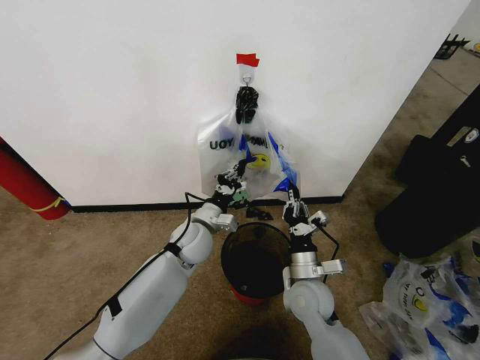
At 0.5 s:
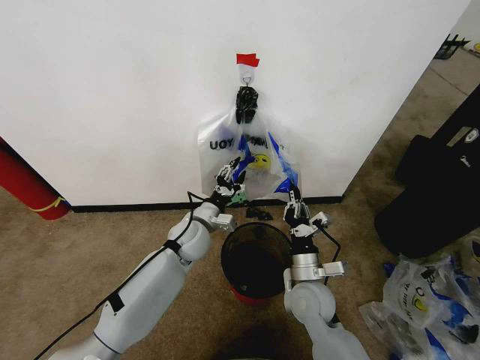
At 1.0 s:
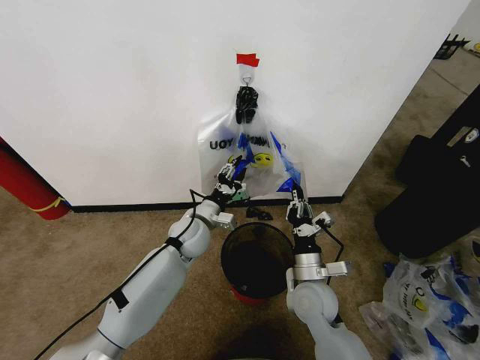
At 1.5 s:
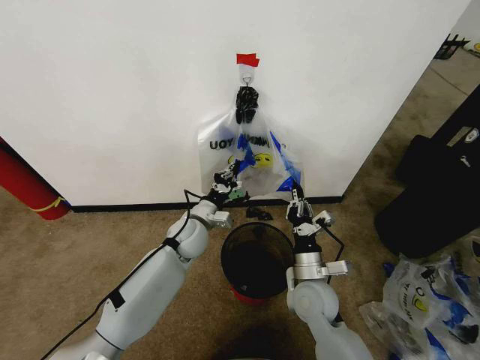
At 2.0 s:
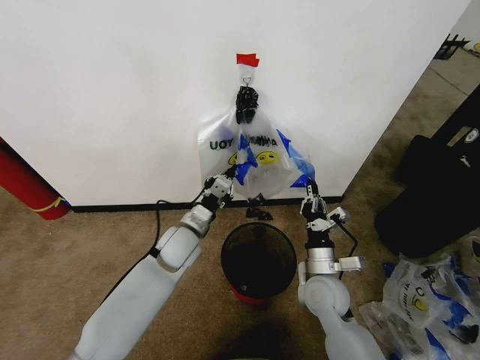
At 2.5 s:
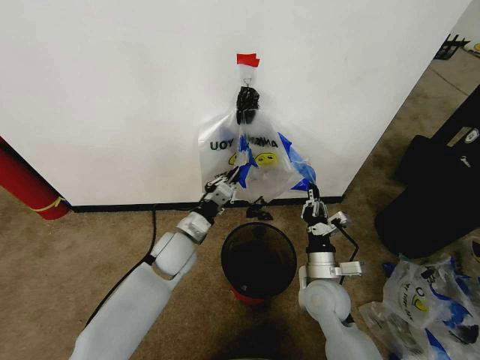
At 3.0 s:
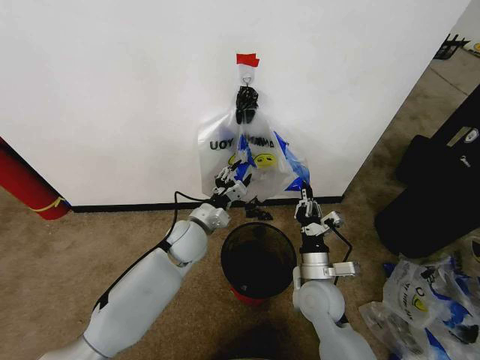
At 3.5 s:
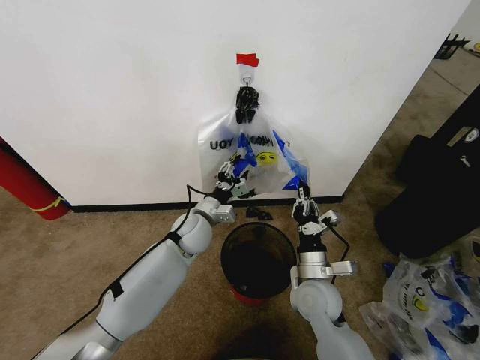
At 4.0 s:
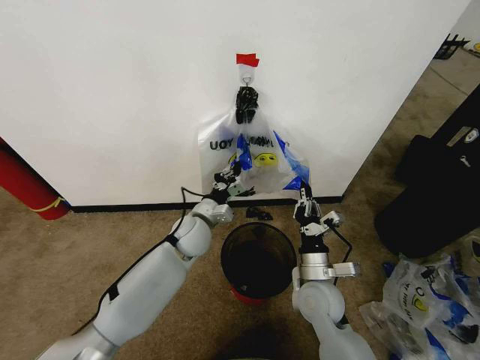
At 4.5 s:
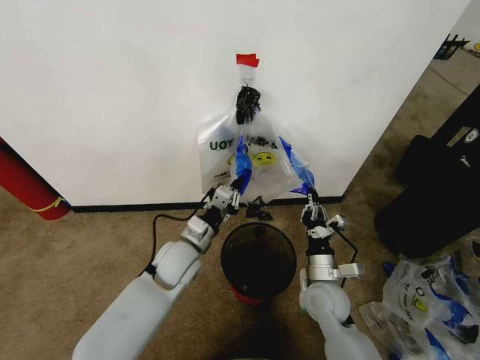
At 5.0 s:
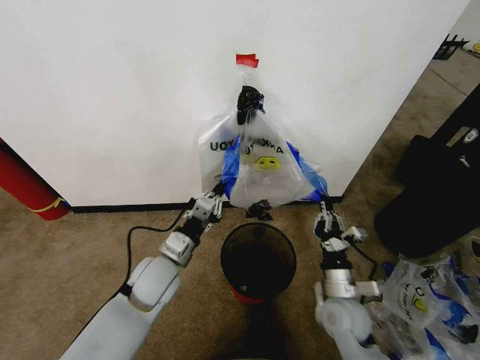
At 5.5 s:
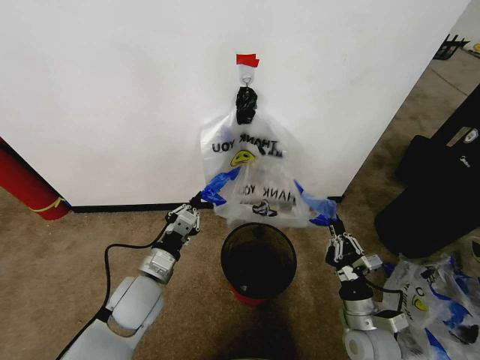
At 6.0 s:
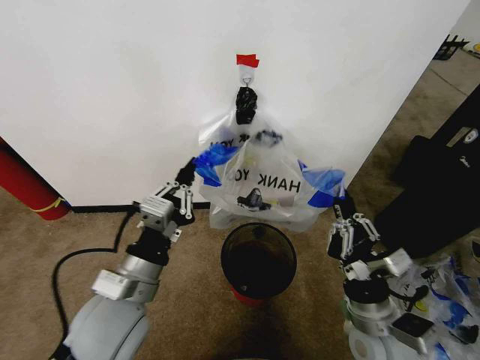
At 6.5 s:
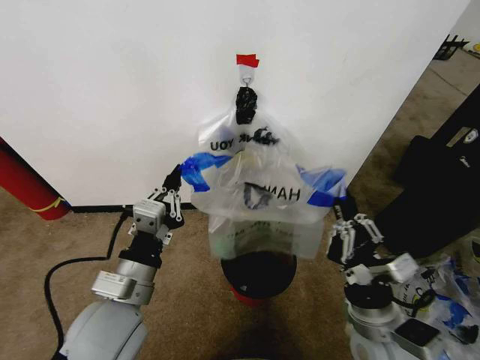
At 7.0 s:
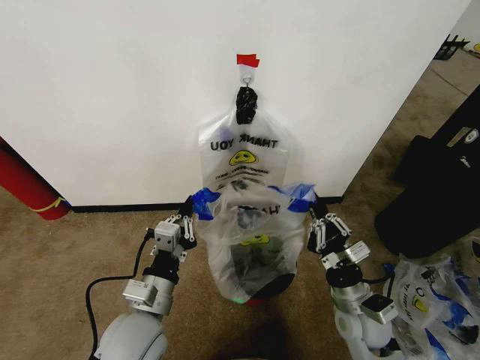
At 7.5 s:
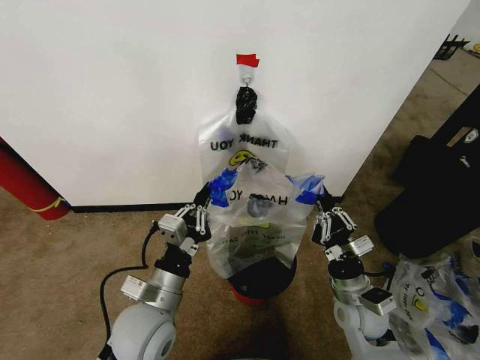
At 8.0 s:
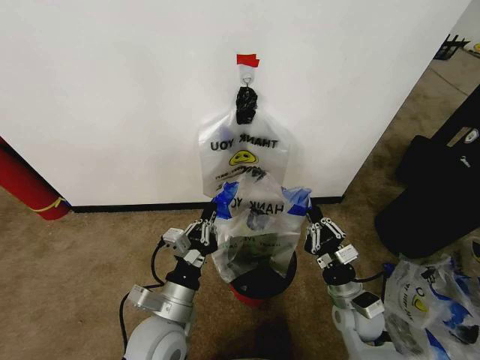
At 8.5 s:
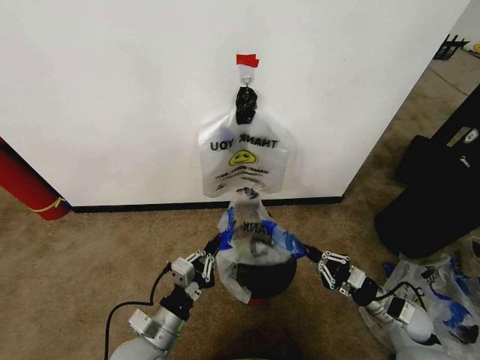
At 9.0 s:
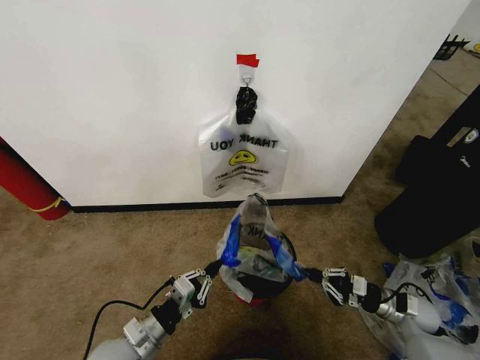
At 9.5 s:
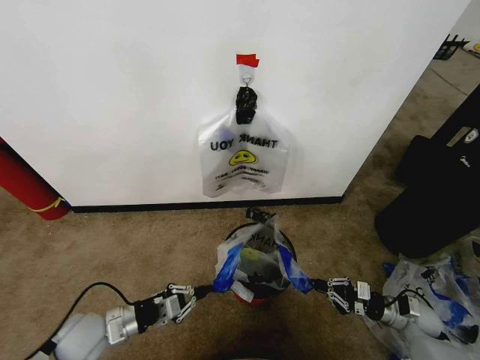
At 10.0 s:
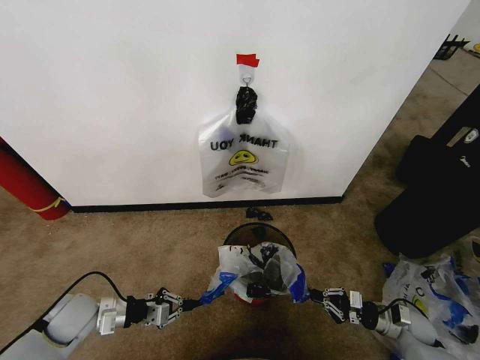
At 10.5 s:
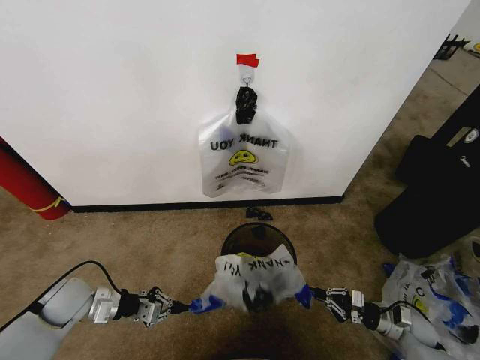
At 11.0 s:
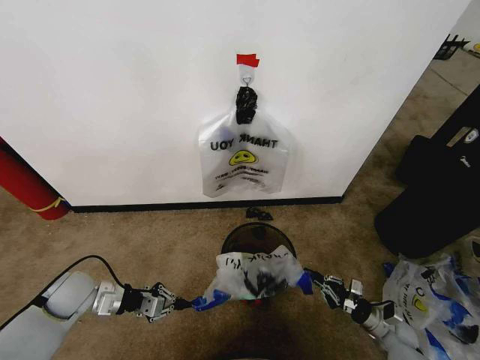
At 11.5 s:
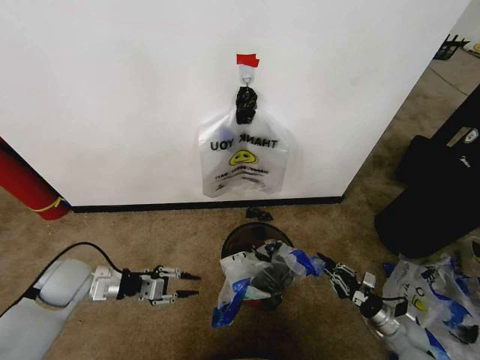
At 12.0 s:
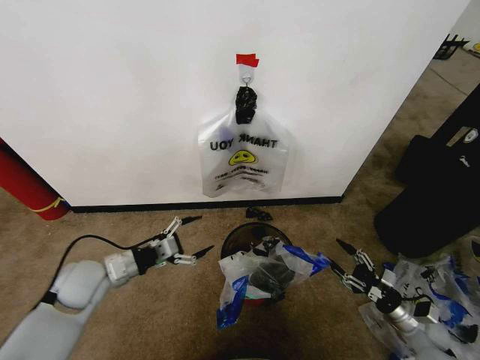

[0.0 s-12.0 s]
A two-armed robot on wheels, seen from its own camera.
Task of the whole recording: Pick up the garbage bag from the wall and place it over the trash bin.
0.0 to 2.0 s: The left gripper opens, then closes once more.
2.0 to 4.0 s: The left gripper opens and closes again.
4.0 to 6.0 s: The left gripper moves backward and upward, roughly 25 cm; the right gripper moves backward, to the right and upward, about 10 cm.
6.0 to 8.0 s: The right gripper shifts about 10 cm downward and forward. Meanwhile the left gripper shifts some 10 cm downward.
8.0 to 10.0 s: The left gripper moves to the left, some 20 cm. The right gripper shifts some 25 cm to the right and downward.
10.0 to 12.0 s: The left gripper is displaced upward by about 5 cm, and opens its fingers. Meanwhile the right gripper opens.

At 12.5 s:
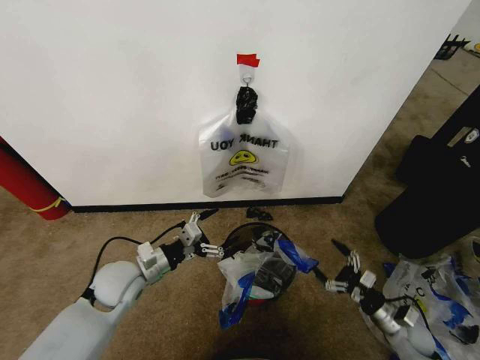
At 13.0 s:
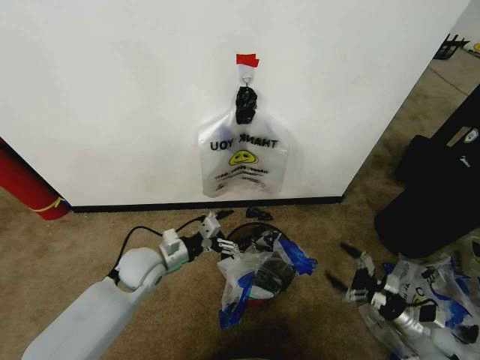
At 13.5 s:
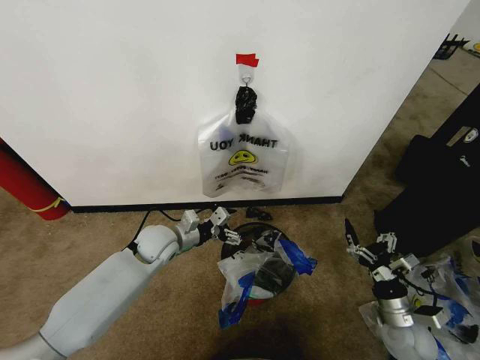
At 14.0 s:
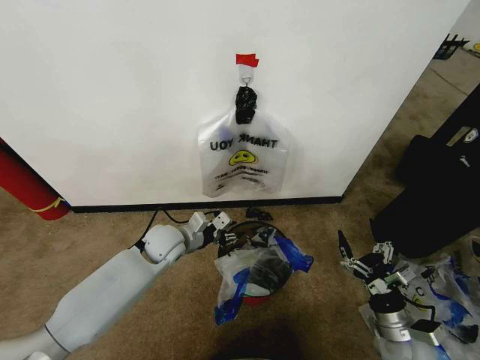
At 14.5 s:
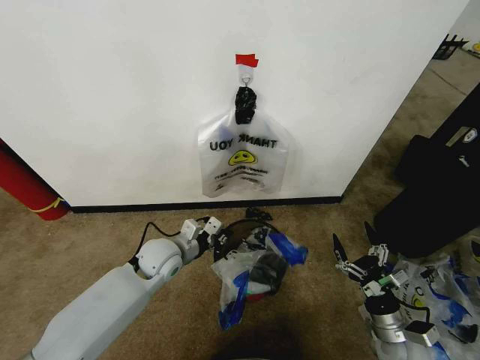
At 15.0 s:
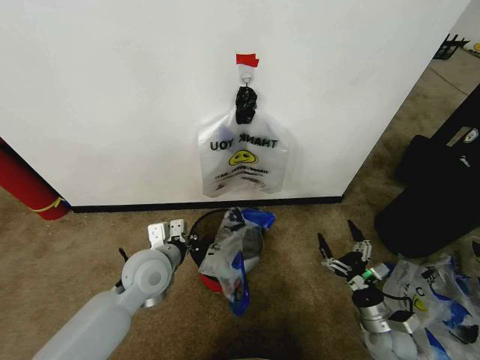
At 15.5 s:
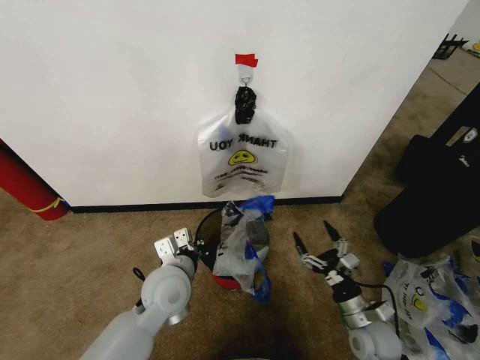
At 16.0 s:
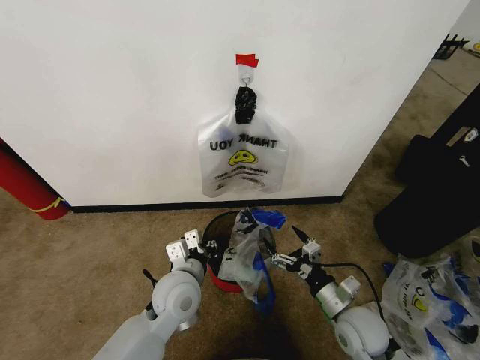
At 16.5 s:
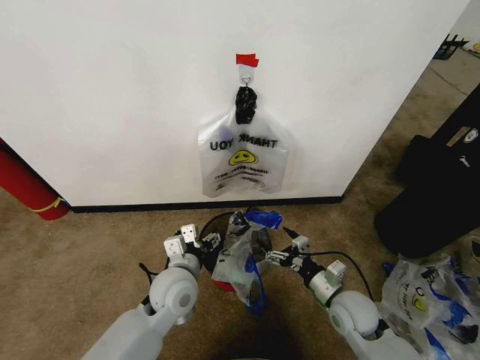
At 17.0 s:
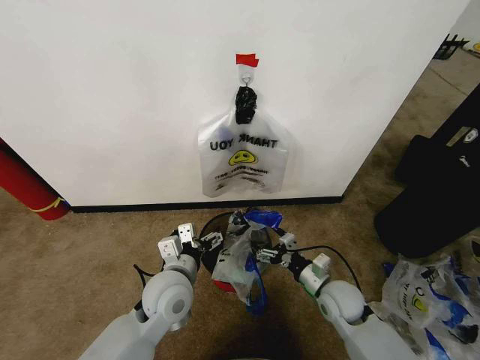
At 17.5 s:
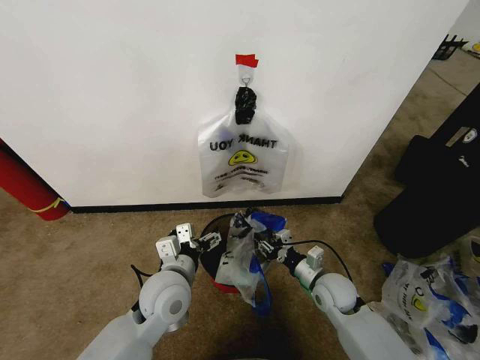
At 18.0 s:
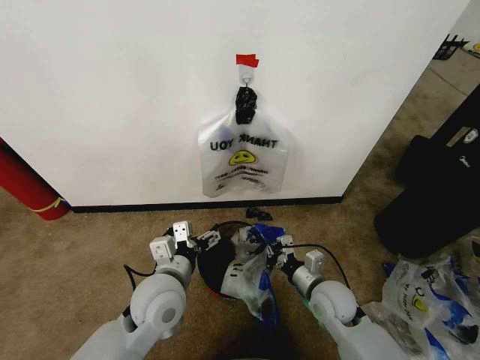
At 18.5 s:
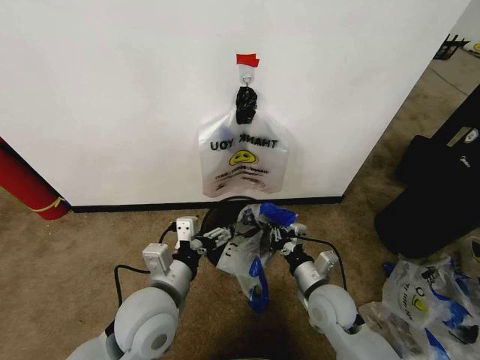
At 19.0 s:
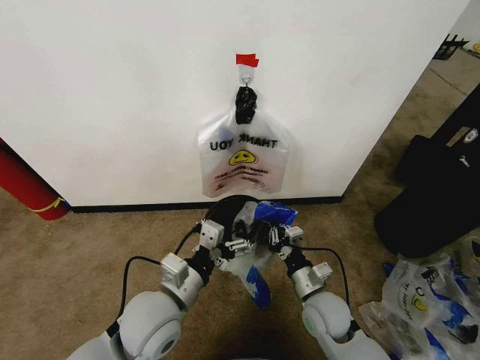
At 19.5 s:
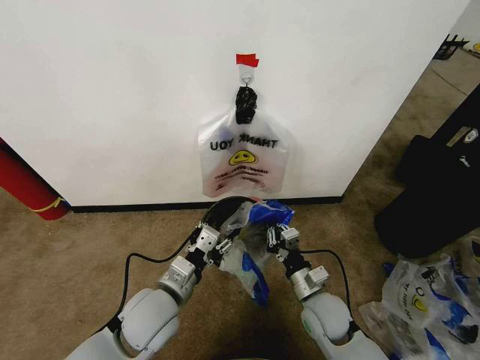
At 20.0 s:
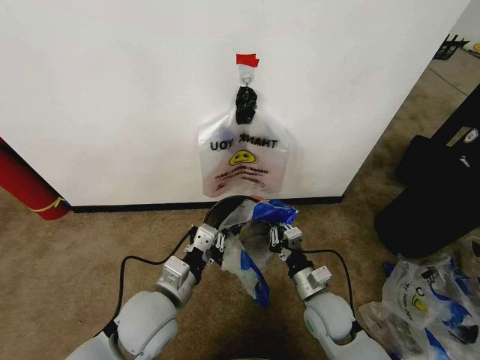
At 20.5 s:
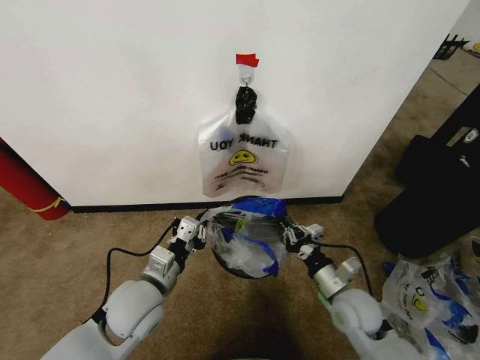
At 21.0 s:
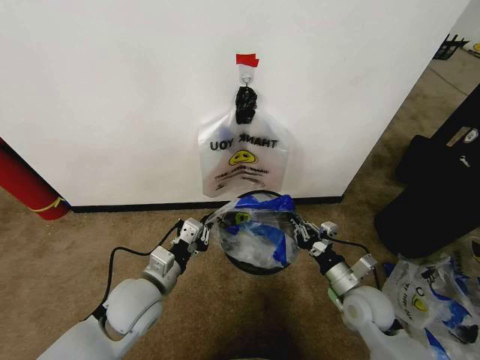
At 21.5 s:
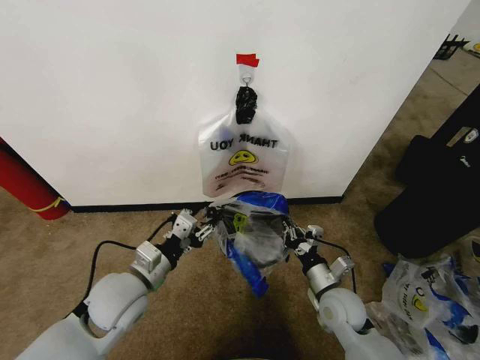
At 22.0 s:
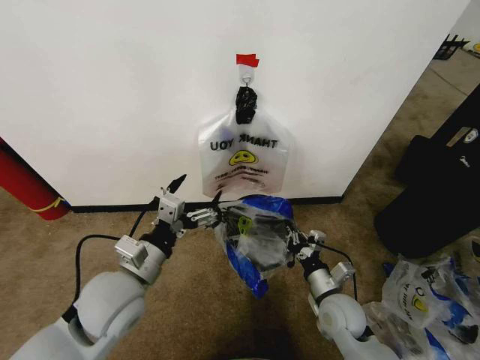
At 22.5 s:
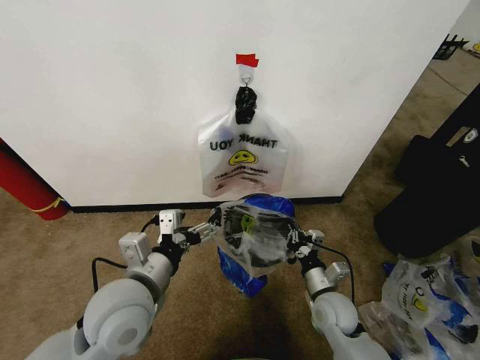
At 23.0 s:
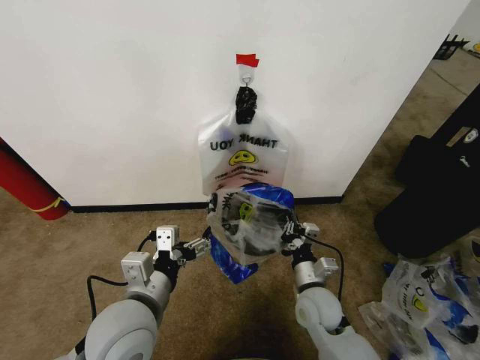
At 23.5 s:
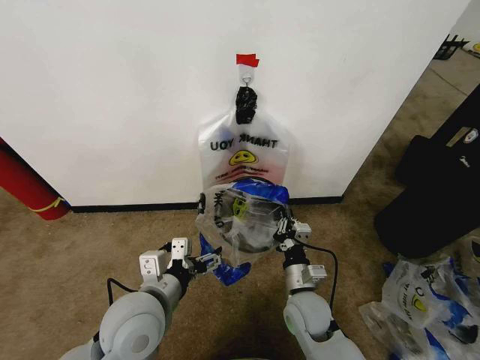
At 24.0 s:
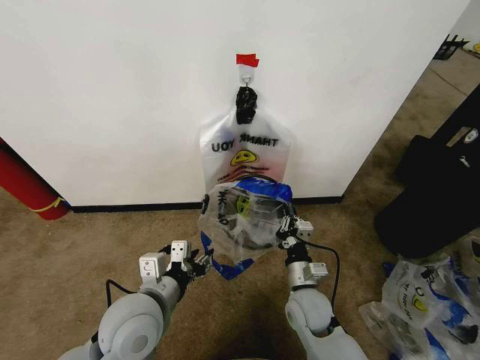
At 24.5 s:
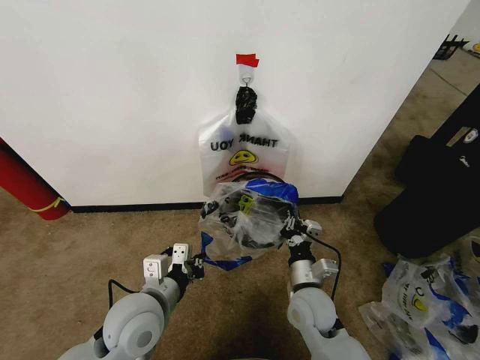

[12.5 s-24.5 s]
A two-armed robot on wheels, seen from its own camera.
Task of the whole recording: Pick up the garbage bag from the wall and place it over the trash bin.
12.5 to 14.5 s: The left gripper is displaced to the right and forward by about 10 cm, and closes; the right gripper shifts roughly 10 cm to the left, upward and backward.
14.5 to 16.5 s: The right gripper shifts roughly 10 cm to the left and forward. The left gripper travels backward and to the right by approximately 10 cm, and opens its fingers.
16.5 to 18.5 s: The right gripper heads to the left, covering about 5 cm, and closes. Meanwhile the left gripper goes some 10 cm backward and upward.
18.5 to 20.5 s: The left gripper shifts by roughly 5 cm, and closes its fingers. Meanwhile the right gripper goes some 5 cm to the right.
20.5 to 22.5 s: The right gripper changes place by about 5 cm; the left gripper heads upward, covering roughly 10 cm, and opens.
22.5 to 24.5 s: The right gripper moves to the left, roughly 5 cm. Meanwhile the left gripper travels downward by roughly 5 cm, and closes.

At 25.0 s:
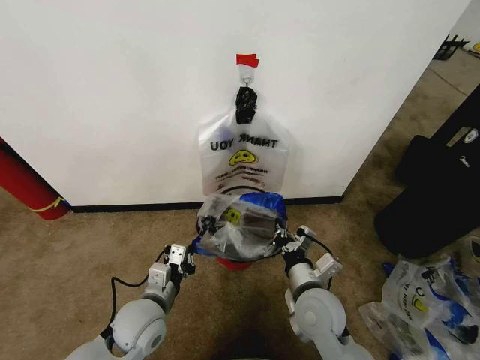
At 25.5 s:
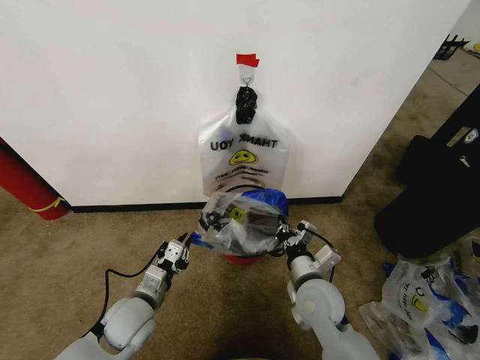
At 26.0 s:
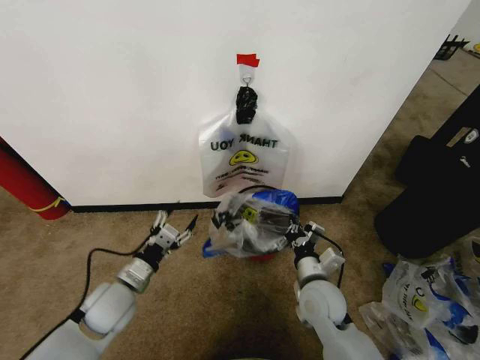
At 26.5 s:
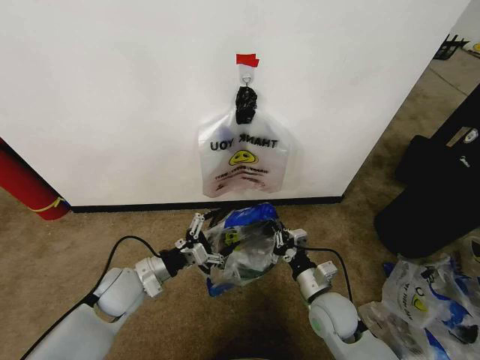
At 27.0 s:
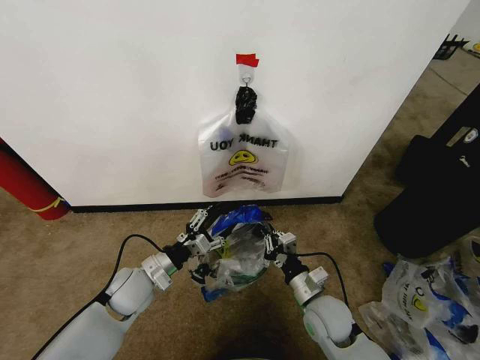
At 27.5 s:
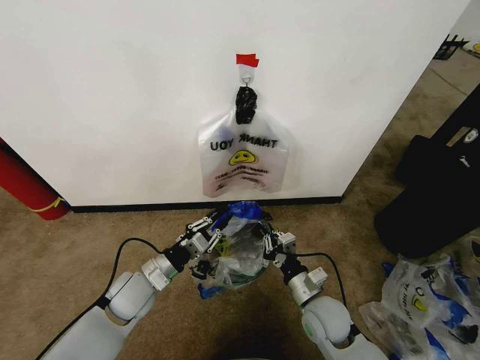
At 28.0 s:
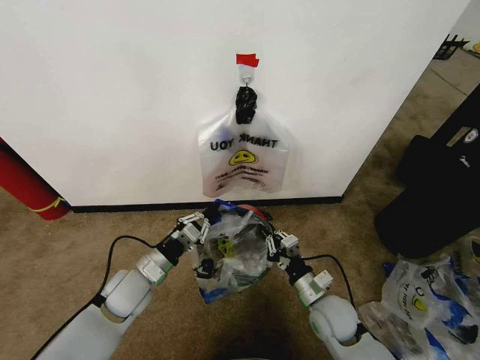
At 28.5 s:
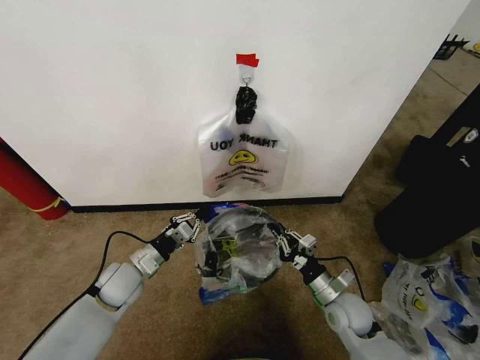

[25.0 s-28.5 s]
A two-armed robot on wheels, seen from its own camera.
Task of the whole recording: Pick up the garbage bag from the wall and place it over the trash bin.
25.0 to 27.0 s: The right gripper travels downward by roughly 5 cm. Meanwhile the left gripper moves forward, some 5 cm, and opens.
27.0 to 28.5 s: The right gripper heads to the right, covering roughly 5 cm, while the left gripper closes up.
